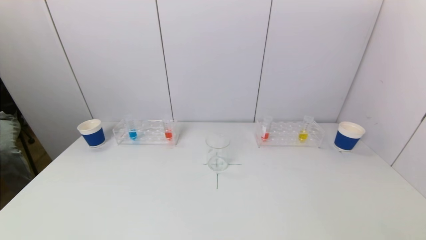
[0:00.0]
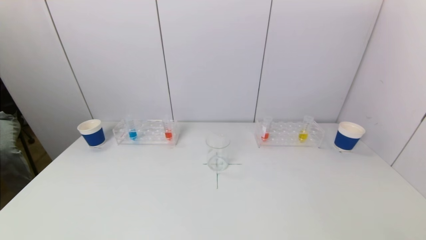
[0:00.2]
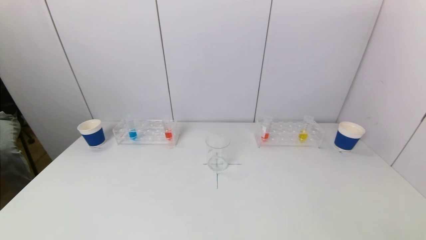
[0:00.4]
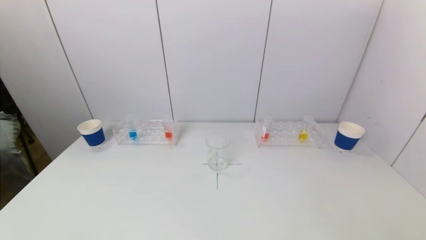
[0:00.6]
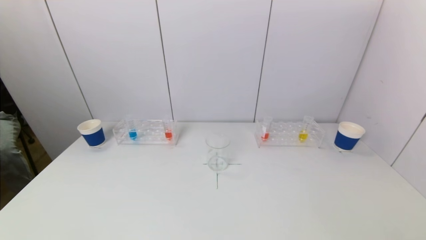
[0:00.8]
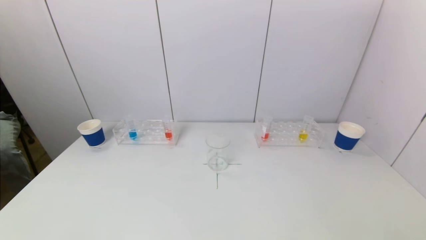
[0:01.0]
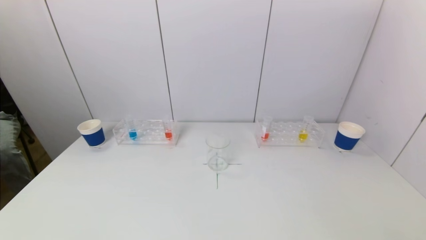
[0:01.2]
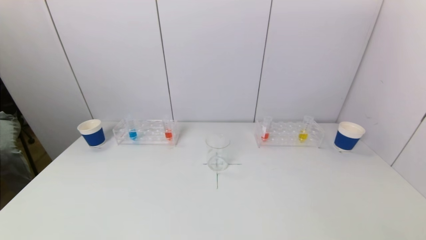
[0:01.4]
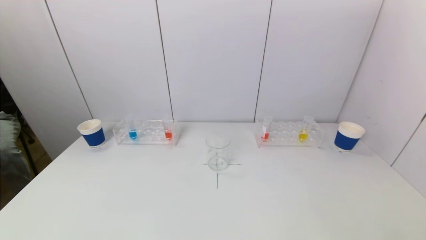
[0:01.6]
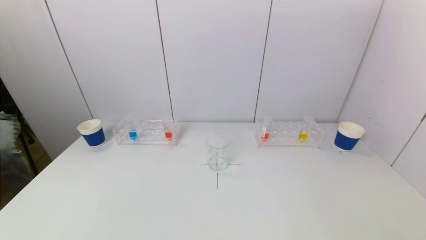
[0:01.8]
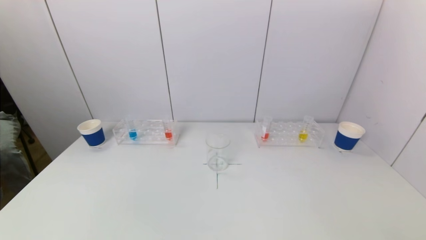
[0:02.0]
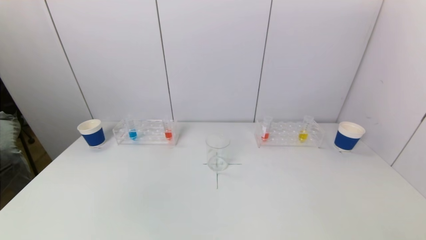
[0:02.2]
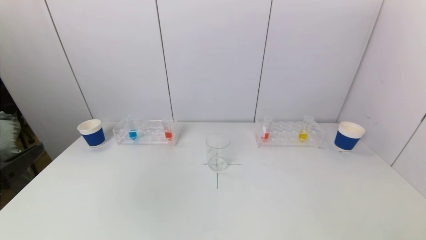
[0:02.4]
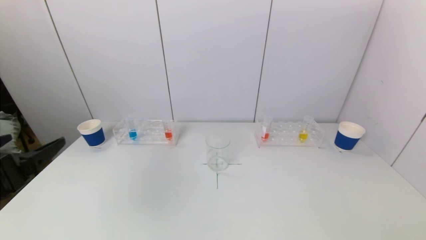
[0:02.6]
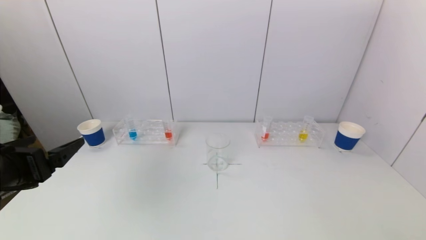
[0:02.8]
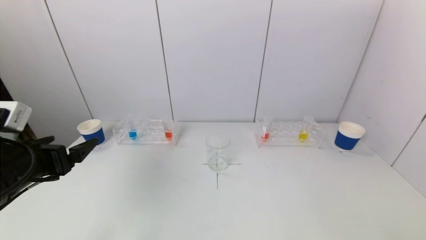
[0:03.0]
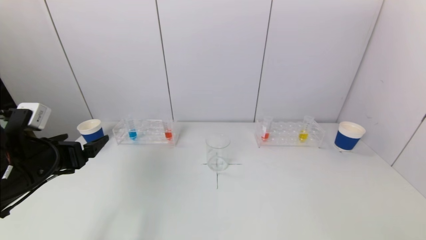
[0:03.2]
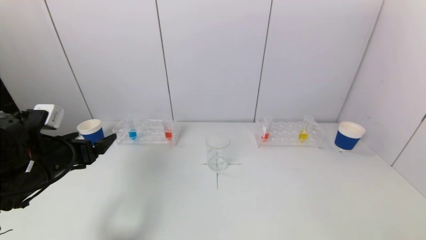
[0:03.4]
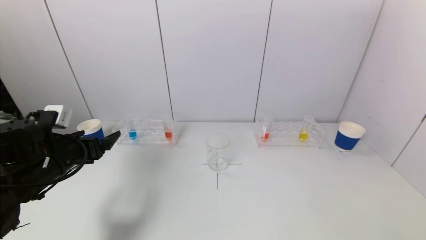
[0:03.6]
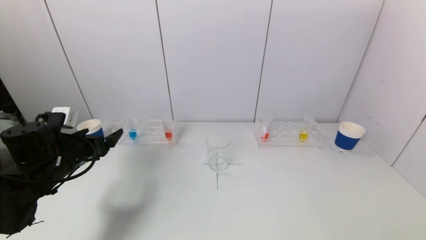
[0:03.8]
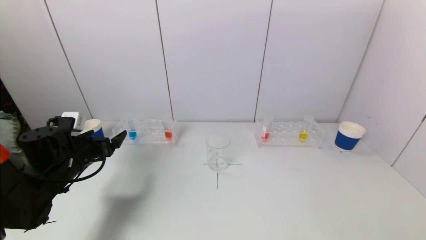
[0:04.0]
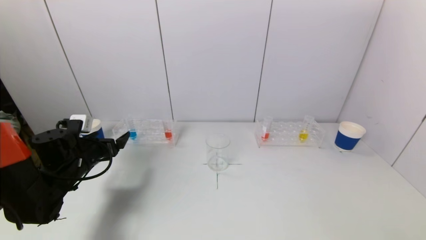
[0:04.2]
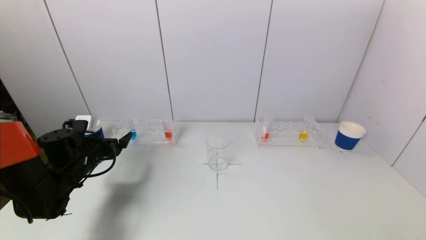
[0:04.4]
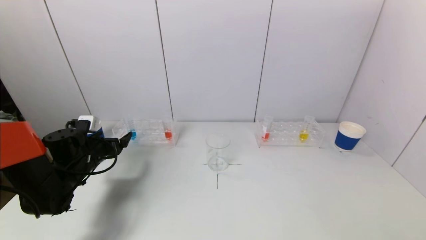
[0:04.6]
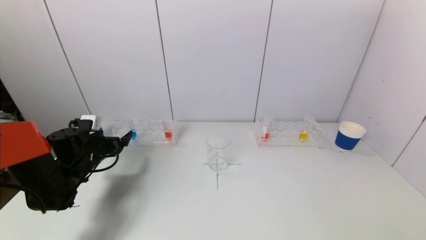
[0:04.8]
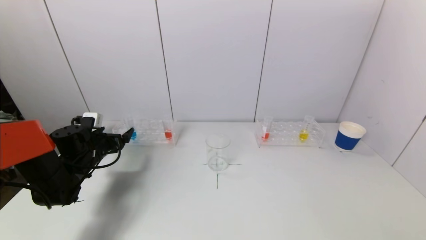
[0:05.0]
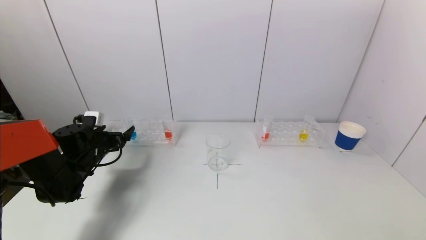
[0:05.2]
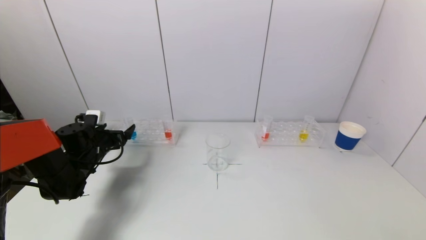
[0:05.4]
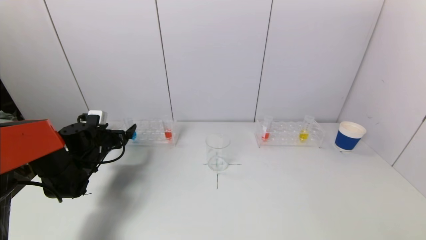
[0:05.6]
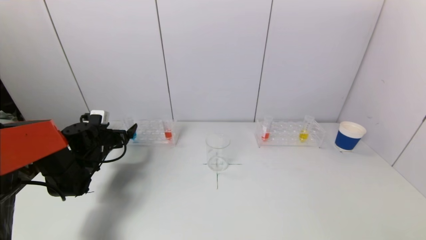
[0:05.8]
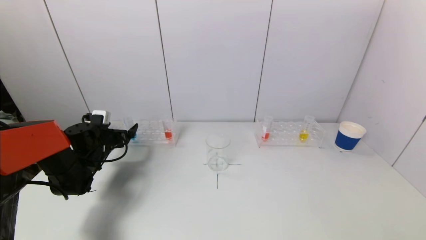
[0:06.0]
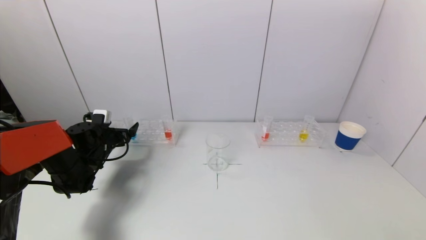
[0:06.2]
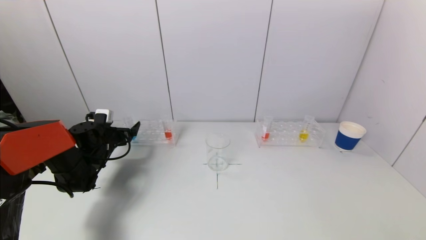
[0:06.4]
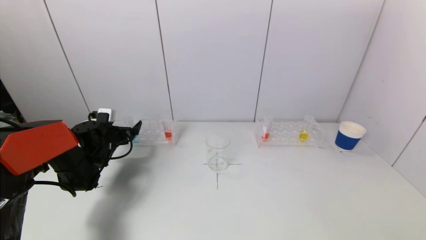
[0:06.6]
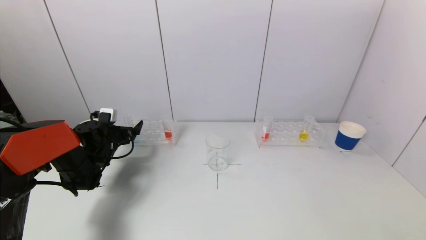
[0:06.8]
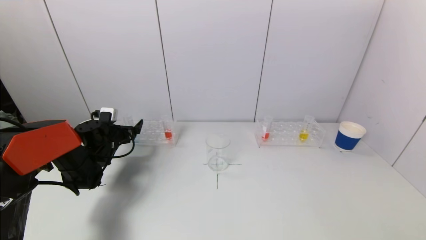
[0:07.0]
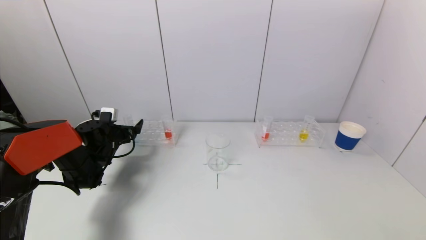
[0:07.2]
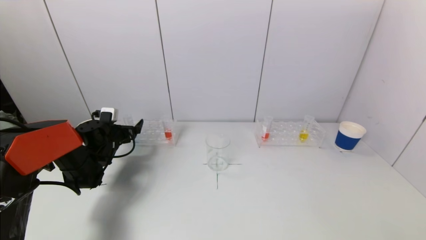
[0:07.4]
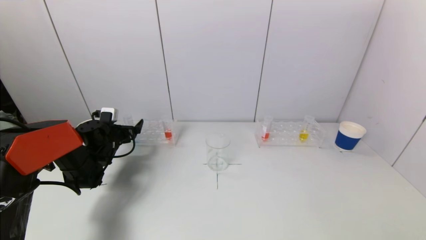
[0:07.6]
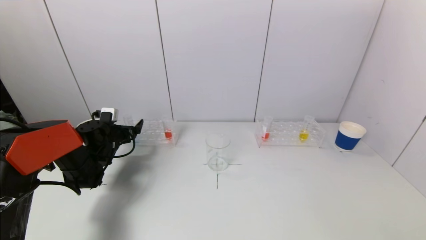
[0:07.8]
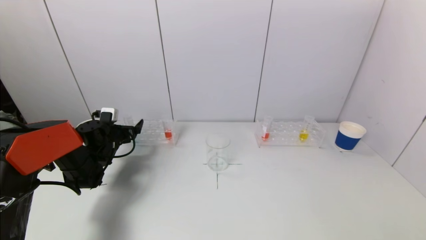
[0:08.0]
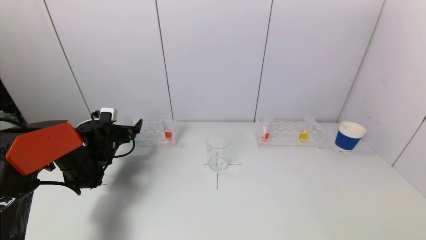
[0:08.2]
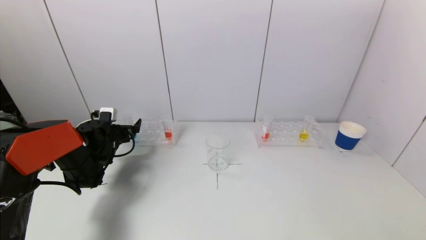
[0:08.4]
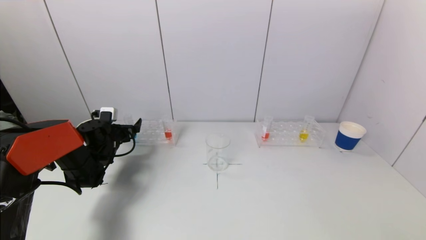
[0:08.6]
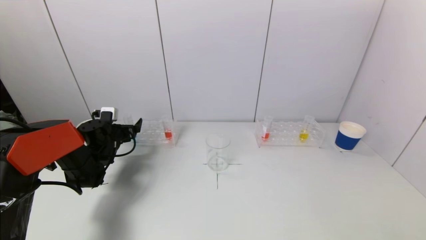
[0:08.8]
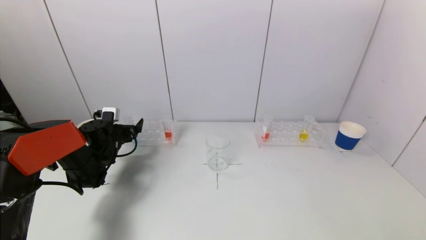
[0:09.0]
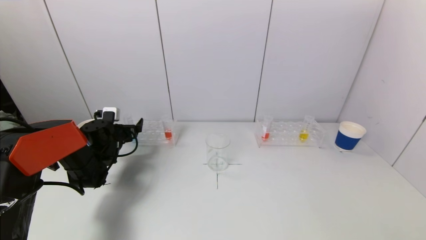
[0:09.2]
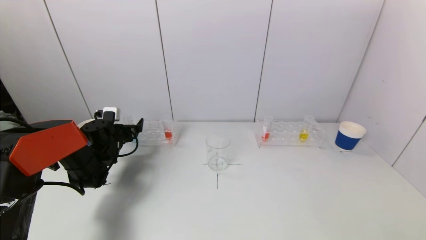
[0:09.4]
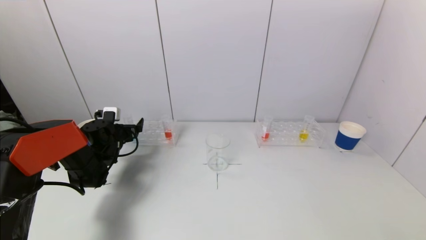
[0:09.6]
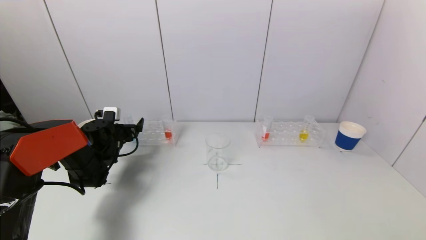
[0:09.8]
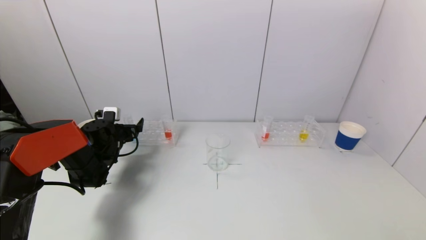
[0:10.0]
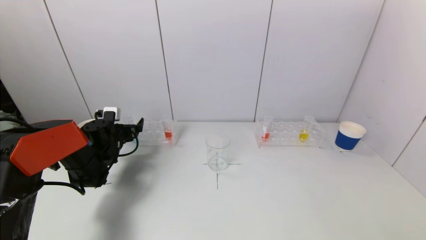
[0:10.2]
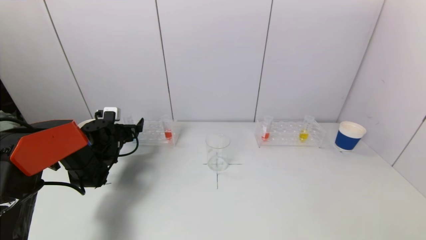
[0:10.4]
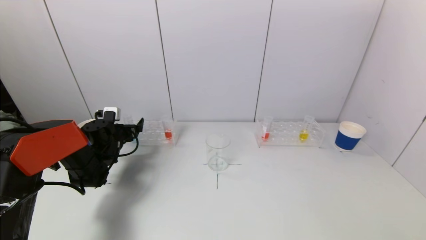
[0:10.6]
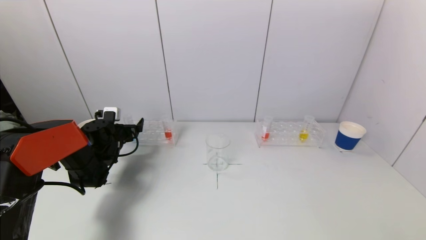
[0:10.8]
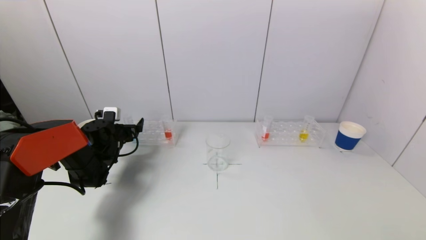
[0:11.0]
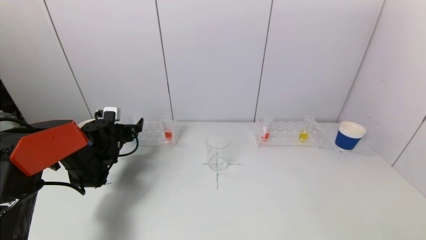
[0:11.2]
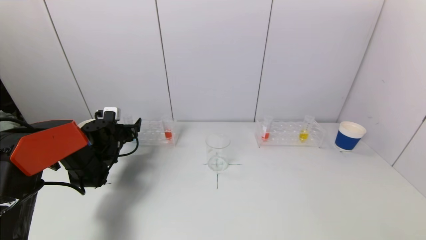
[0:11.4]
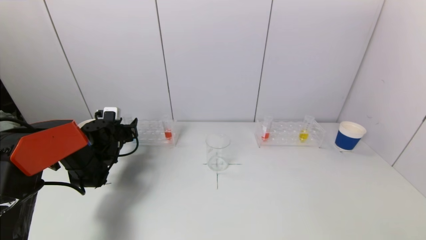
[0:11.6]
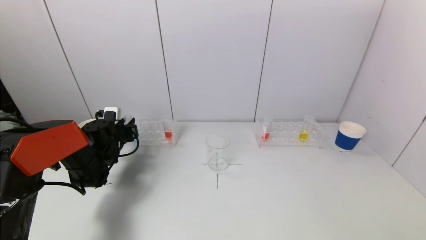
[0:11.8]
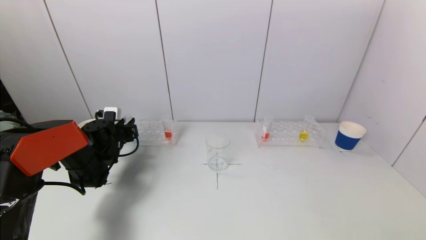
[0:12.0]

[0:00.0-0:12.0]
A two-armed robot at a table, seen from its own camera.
Task of the whole recording: pick up a test tube with pigment on left test tube rack and a test tube with pigment on right test tube rack by grippers and pour them into the beaker.
0:01.6 to 0:03.0: The left gripper heads forward, covering about 20 cm.
0:03.0 to 0:04.4: The left gripper moves forward and downward, some 20 cm.
0:04.4 to 0:06.0: The left gripper is displaced forward by about 5 cm.
0:06.0 to 0:07.6: The grippers stay close to where they were, moving slightly.
0:07.6 to 0:10.4: The two grippers keep their place.

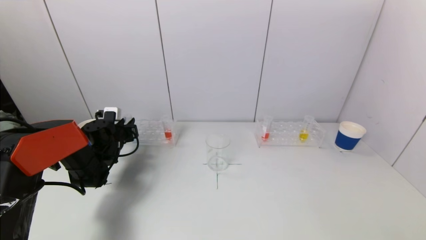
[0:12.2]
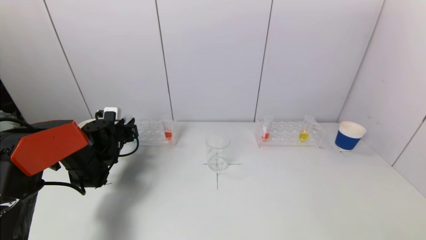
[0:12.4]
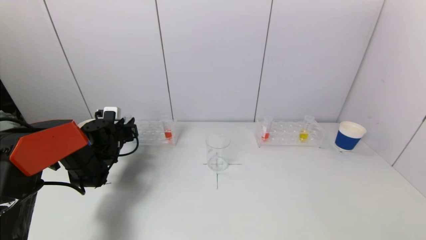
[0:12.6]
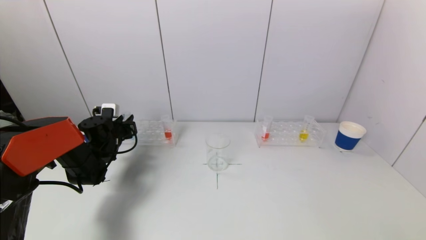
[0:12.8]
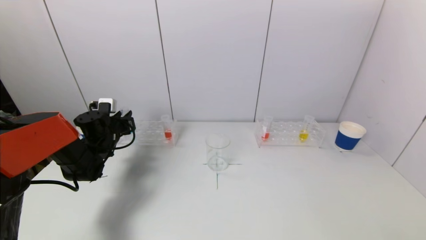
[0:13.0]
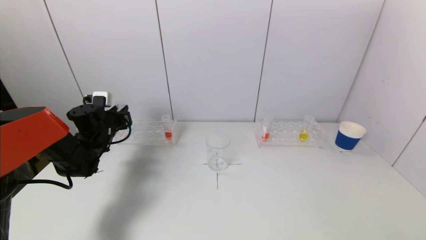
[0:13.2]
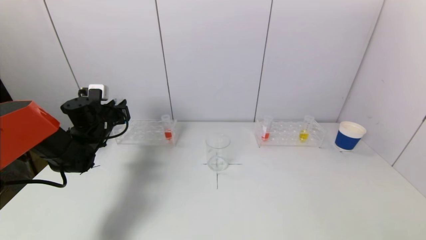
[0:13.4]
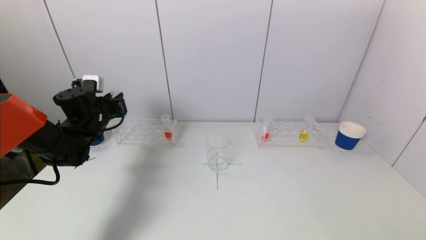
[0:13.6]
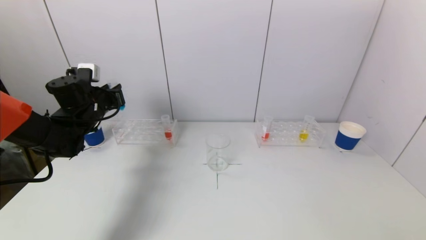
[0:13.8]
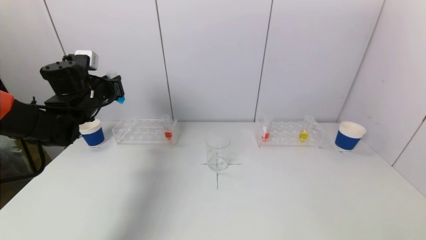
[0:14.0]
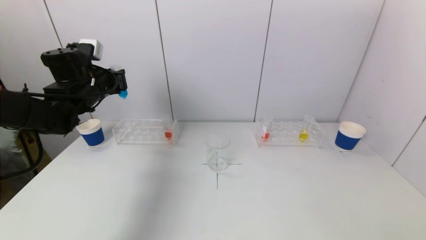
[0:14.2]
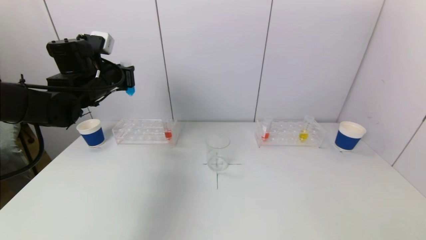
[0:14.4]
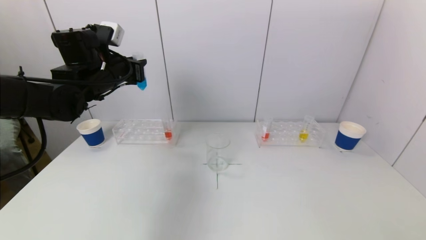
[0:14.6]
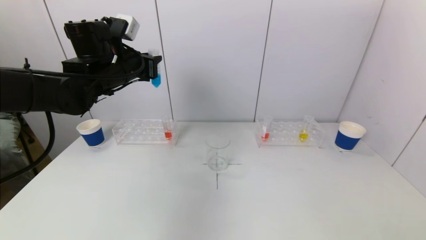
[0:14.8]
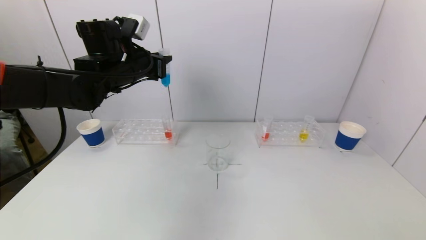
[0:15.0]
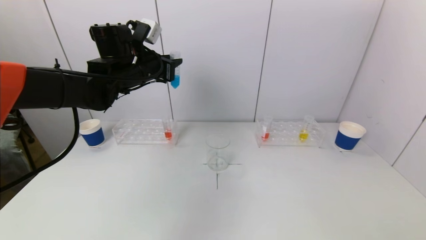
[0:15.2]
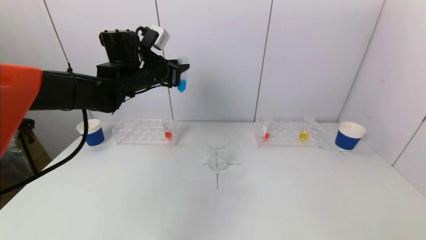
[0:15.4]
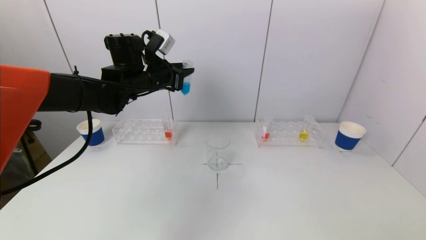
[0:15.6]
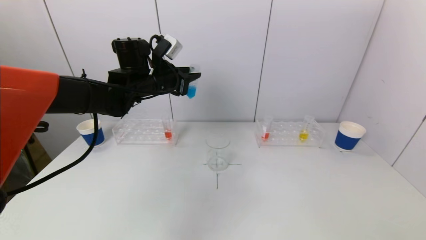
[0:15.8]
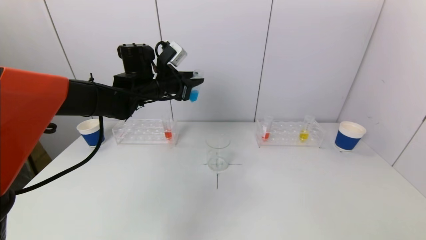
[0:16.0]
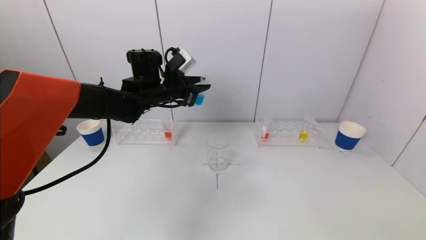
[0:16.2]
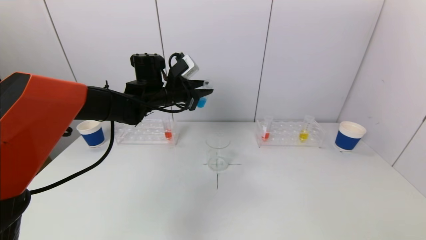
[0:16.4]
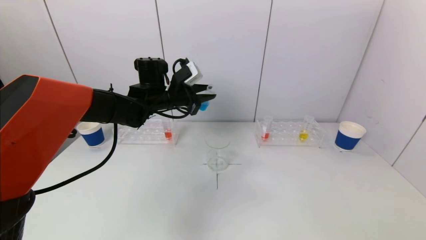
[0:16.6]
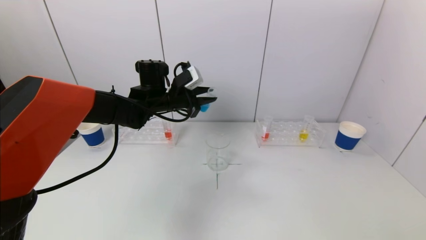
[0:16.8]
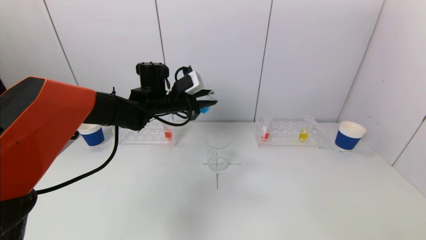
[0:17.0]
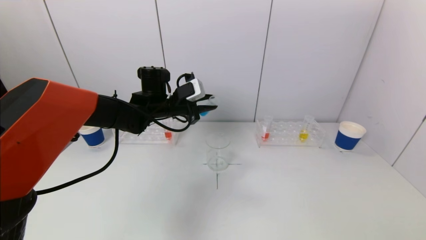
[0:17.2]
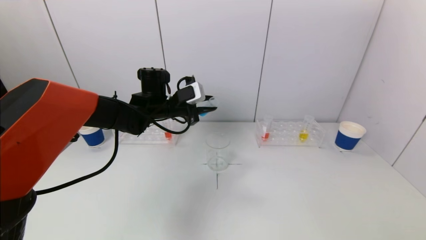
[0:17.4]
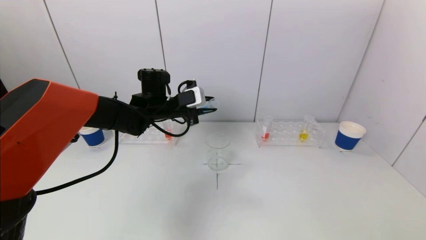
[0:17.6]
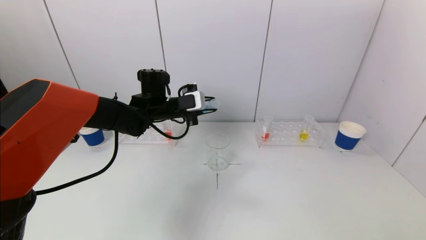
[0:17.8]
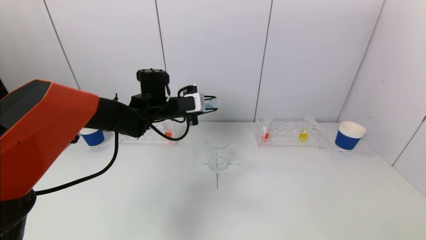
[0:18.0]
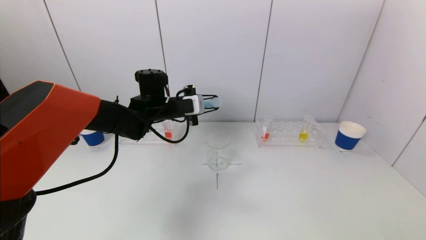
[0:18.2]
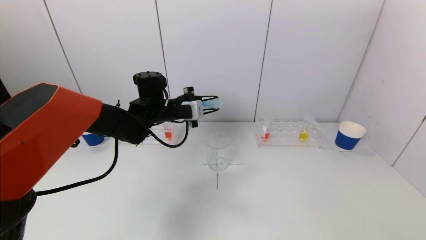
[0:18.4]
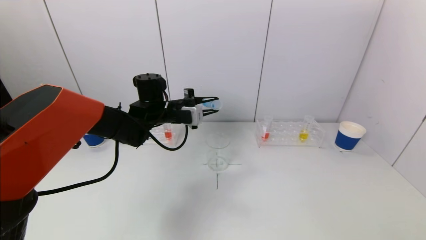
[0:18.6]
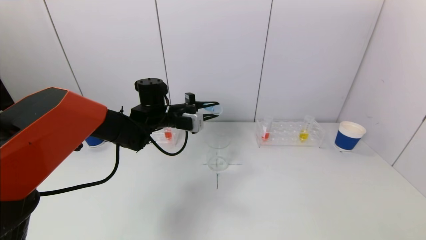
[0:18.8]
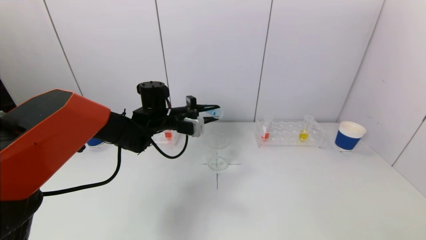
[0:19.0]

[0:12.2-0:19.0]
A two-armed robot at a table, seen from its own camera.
Task of the whole recording: pick up a test tube with pigment on left test tube rack and a test tube with pigment on right test tube rack by grippers and pour them into the beaker.
0:12.2 to 0:13.6: The left gripper travels upward by approximately 10 cm.
0:13.6 to 0:15.0: The left gripper is displaced upward and to the right by approximately 20 cm.
0:15.0 to 0:16.2: The left gripper heads downward and to the right, covering about 10 cm.
